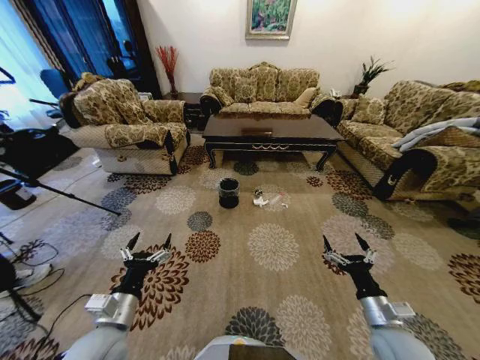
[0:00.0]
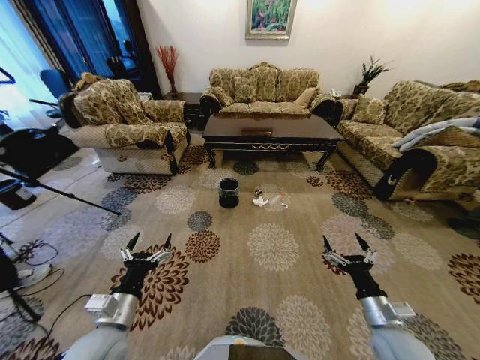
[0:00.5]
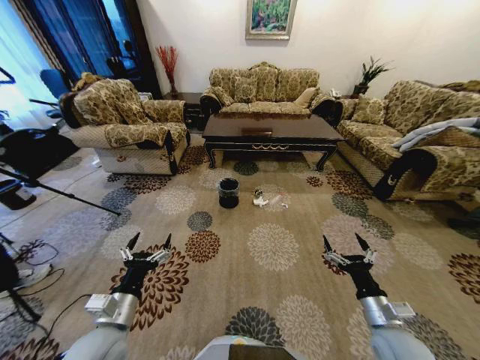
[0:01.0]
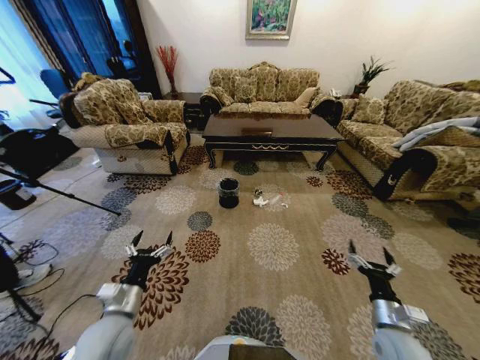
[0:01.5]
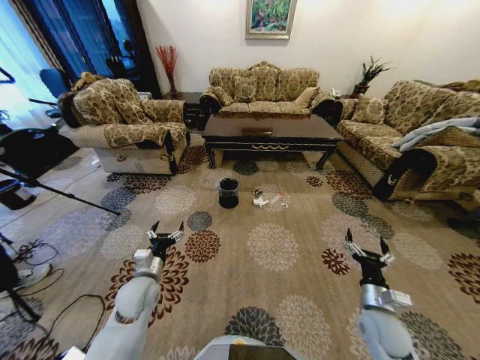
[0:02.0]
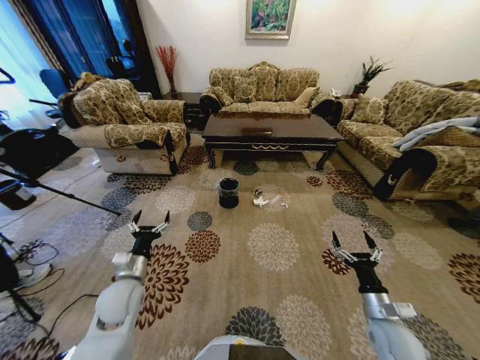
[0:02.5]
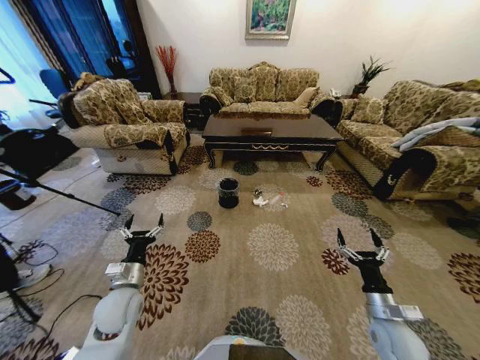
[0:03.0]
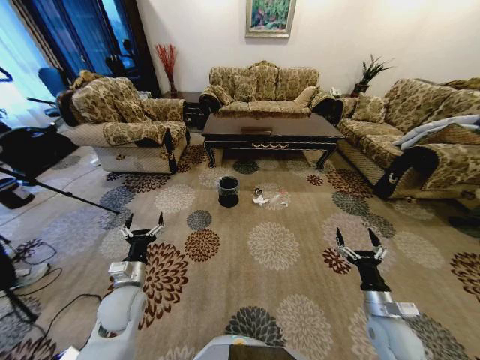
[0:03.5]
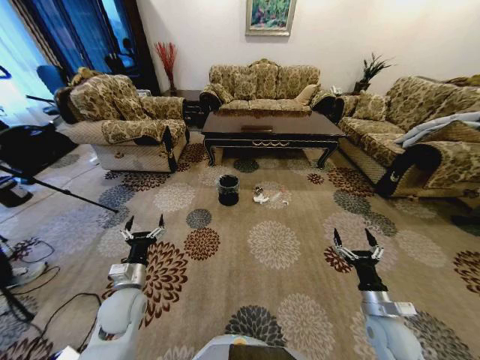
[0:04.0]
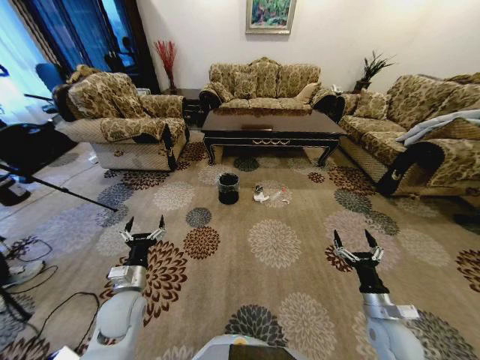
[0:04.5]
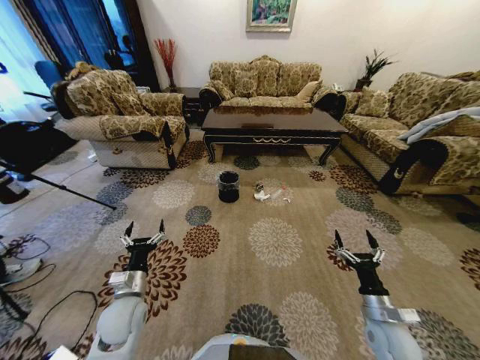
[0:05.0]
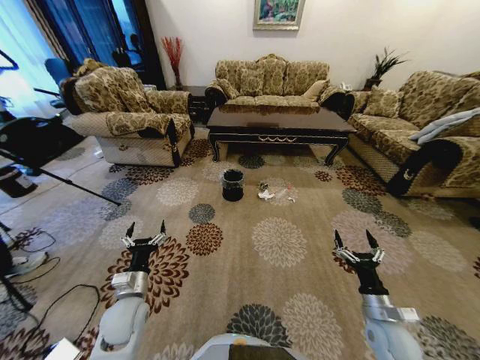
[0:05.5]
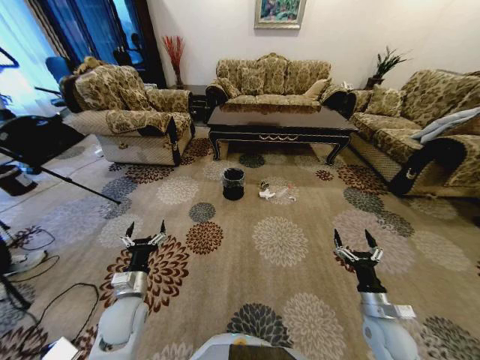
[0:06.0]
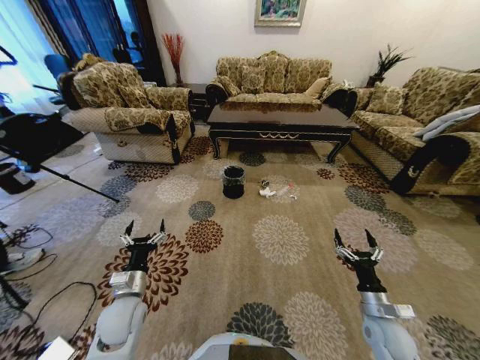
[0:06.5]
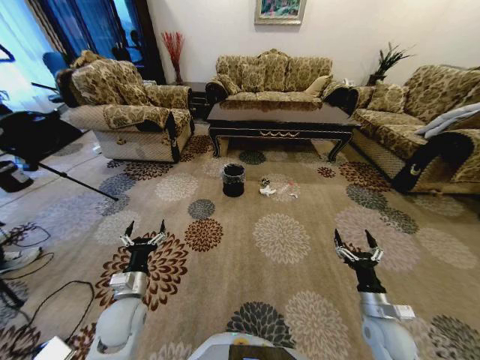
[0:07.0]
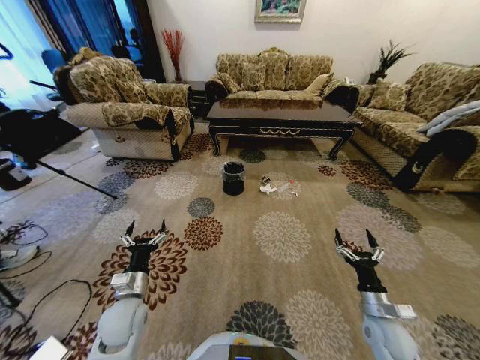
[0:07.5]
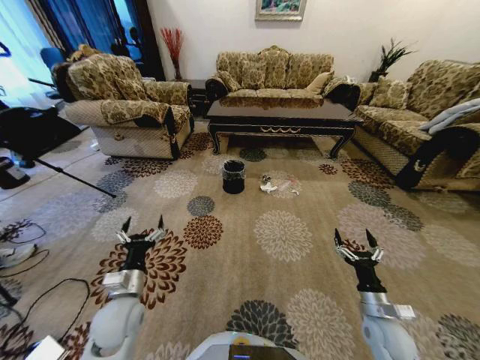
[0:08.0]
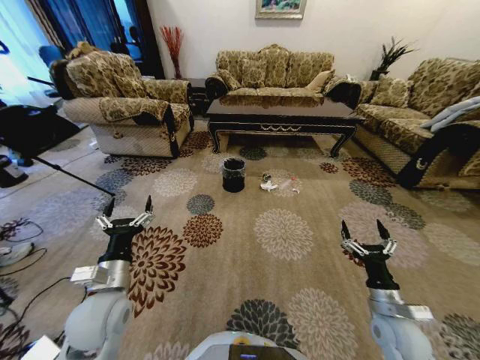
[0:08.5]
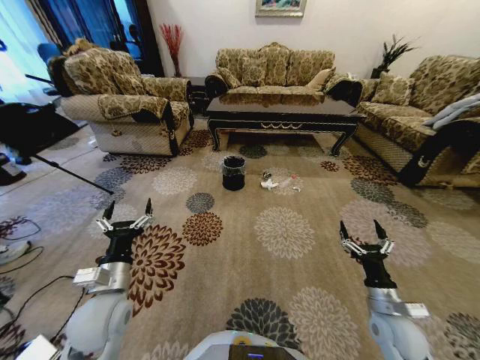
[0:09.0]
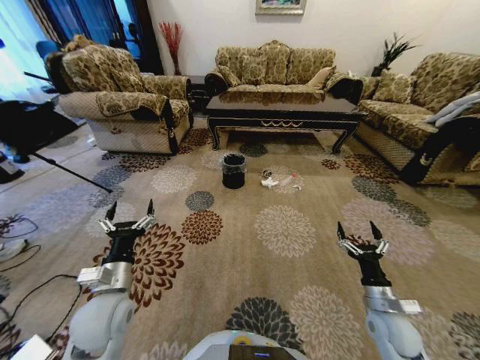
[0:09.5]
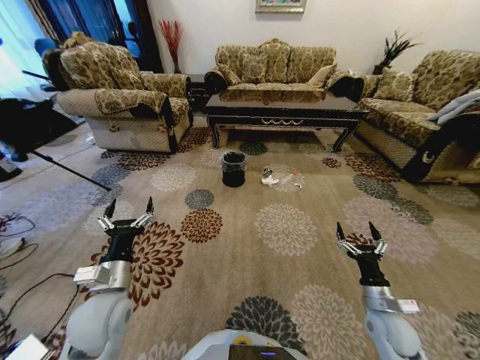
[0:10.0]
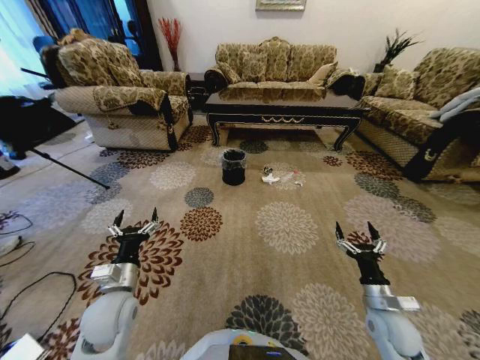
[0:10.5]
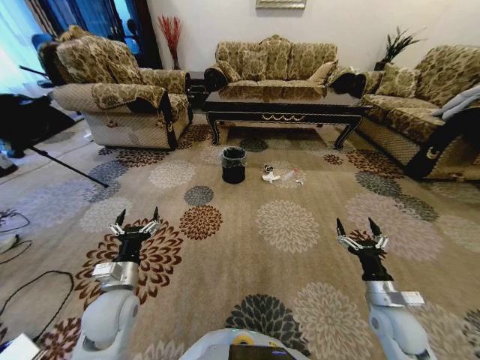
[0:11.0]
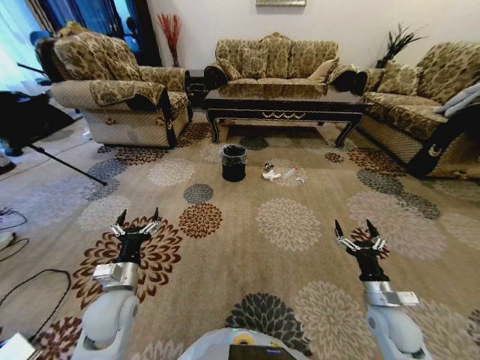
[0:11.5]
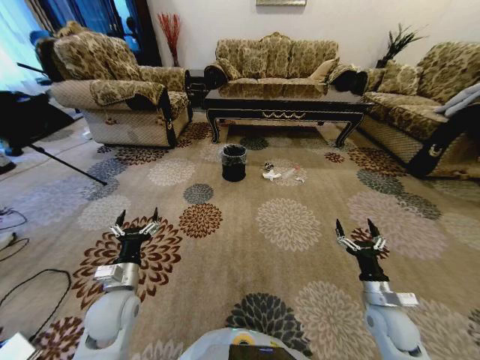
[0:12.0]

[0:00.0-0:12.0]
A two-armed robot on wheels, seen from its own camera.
Task of the whole recording: Move to the front of the table and pick up the trash from the floor, then place it into the trash bin.
8.0 to 10.0 s: The left gripper shifts approximately 5 cm upward.
10.0 to 12.0 s: The left gripper travels downward by approximately 5 cm.

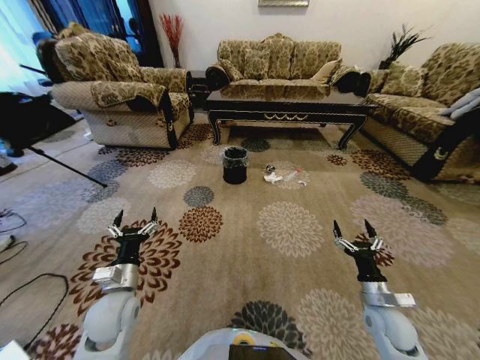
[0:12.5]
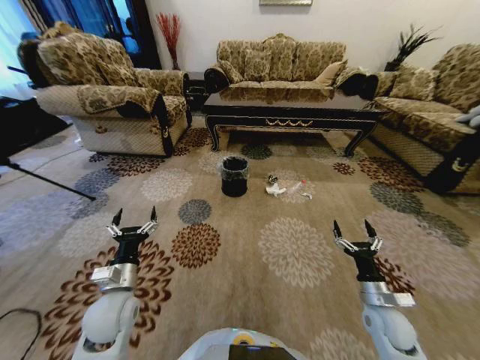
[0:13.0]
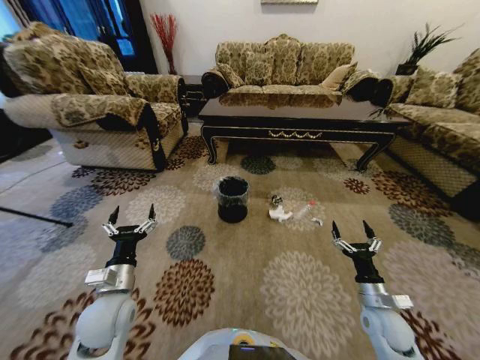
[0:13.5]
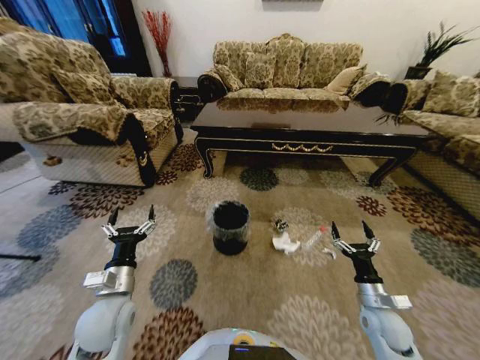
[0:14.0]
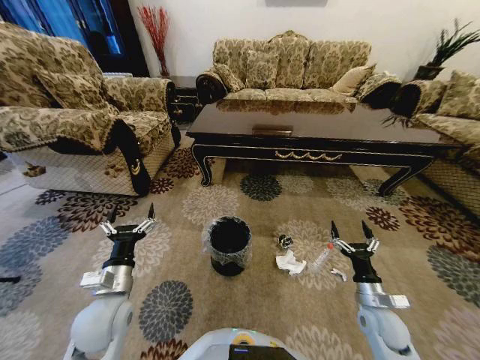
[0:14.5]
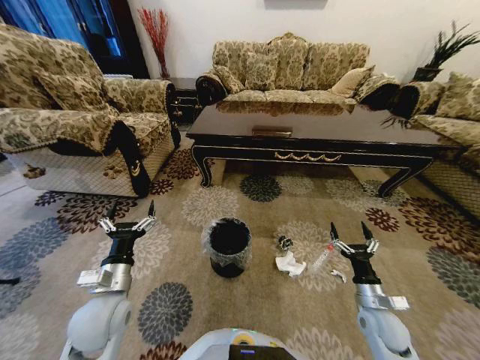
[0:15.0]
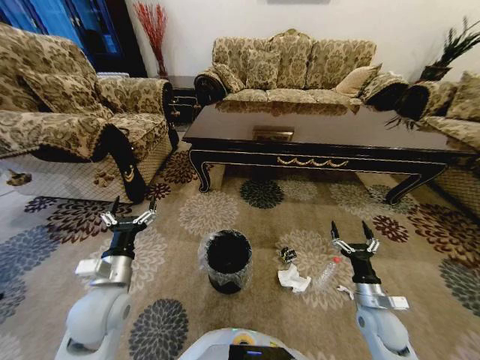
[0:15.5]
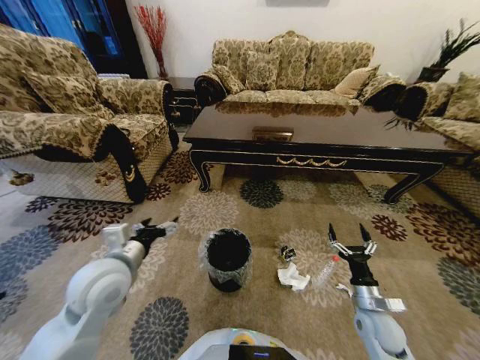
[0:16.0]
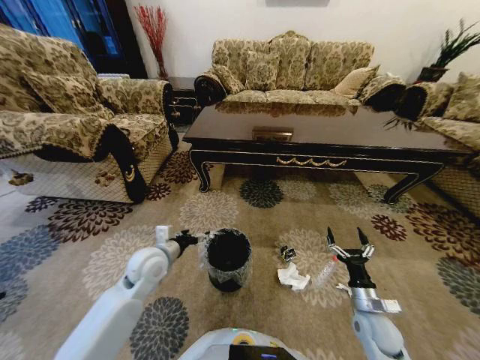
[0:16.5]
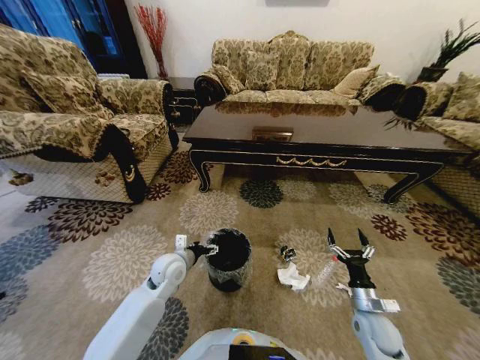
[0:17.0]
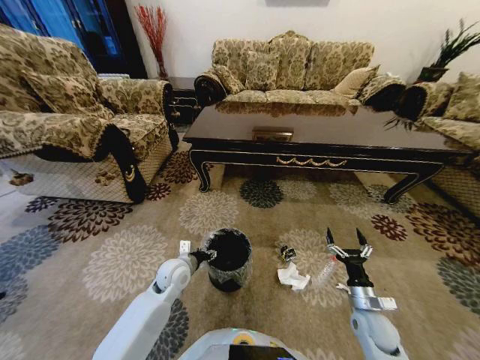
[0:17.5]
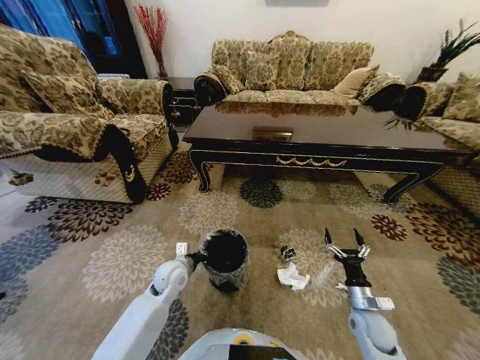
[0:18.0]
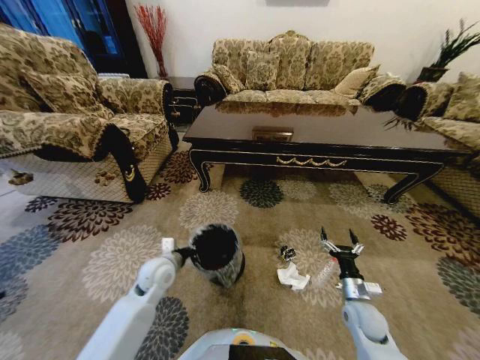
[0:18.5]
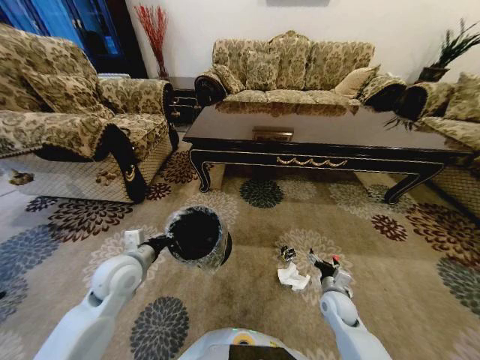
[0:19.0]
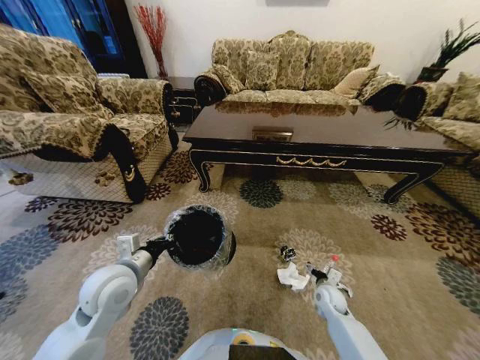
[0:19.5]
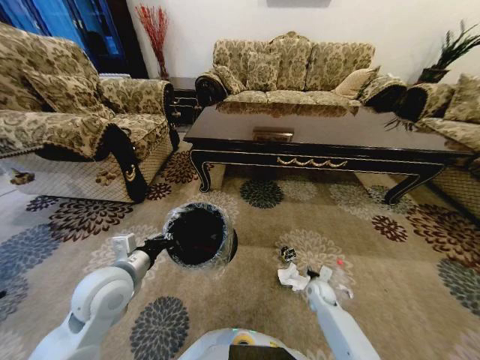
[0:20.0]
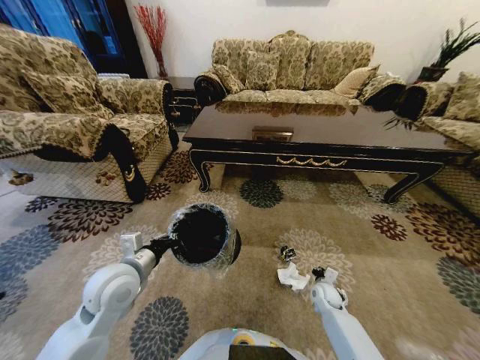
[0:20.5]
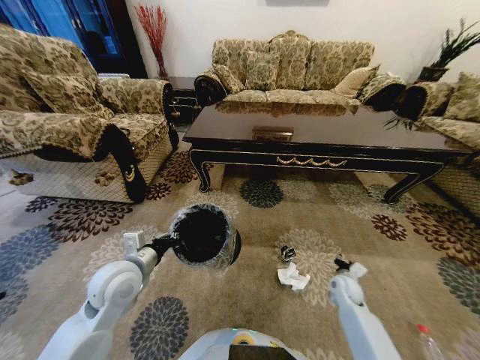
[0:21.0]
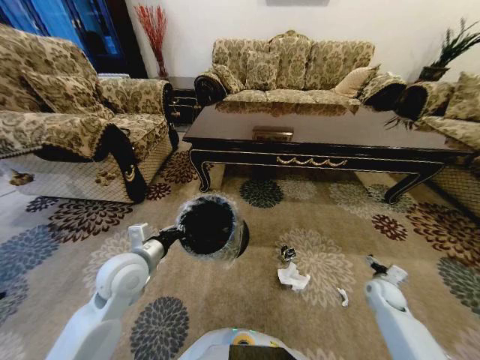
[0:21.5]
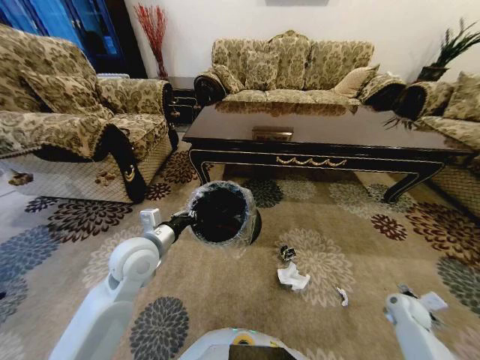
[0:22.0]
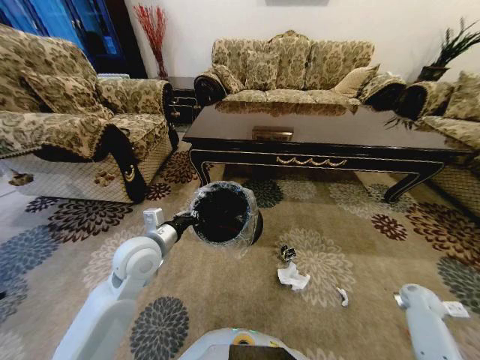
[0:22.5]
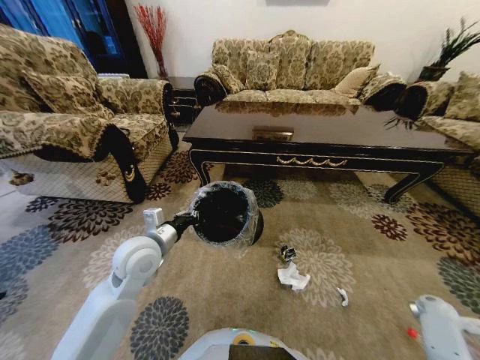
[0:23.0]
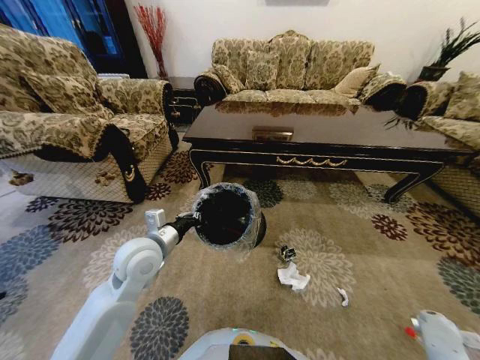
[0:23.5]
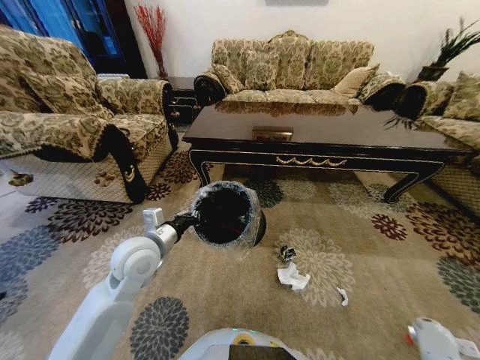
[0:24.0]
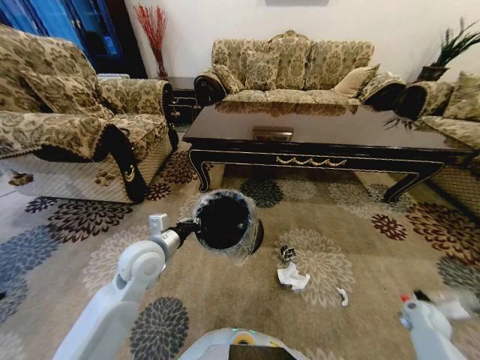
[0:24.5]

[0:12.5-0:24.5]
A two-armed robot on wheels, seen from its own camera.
Task of the whole recording: Move to the front of the table and pick up the trash from the floor, then place it into the trash bin.
14.5 to 16.5 s: The left gripper heads forward, covering approximately 10 cm.
16.5 to 18.5 s: The left gripper travels downward by about 5 cm, and closes up.
18.5 to 20.5 s: The right gripper is displaced downward and forward by approximately 15 cm, and closes; the left gripper travels upward and backward by roughly 15 cm.
20.5 to 22.5 s: The left gripper travels forward by some 5 cm, while the right gripper is displaced to the right by about 25 cm, and opens its fingers.
22.5 to 24.5 s: The right gripper moves some 5 cm to the right and comes back, and closes.

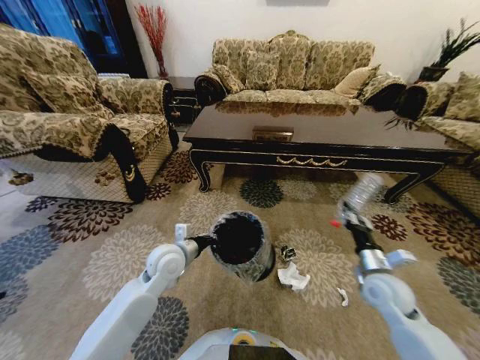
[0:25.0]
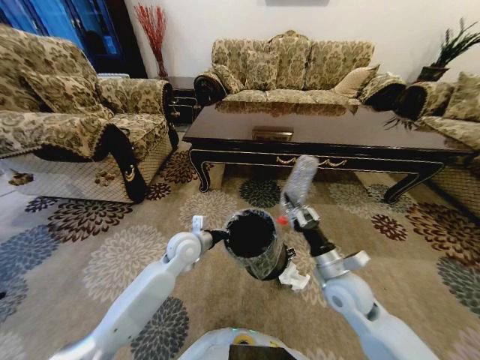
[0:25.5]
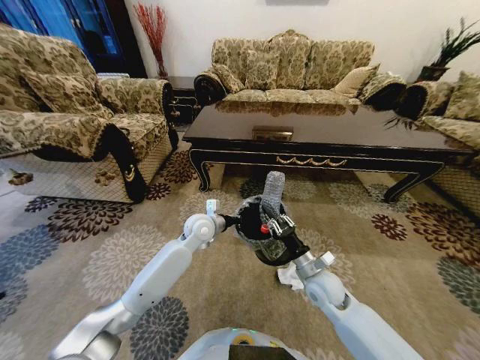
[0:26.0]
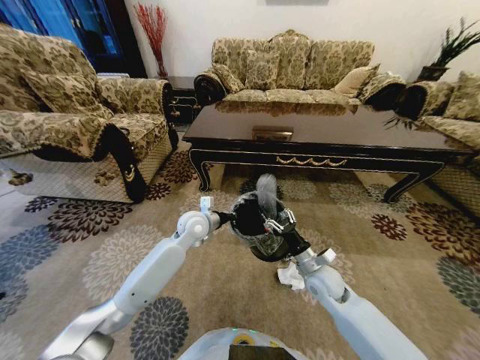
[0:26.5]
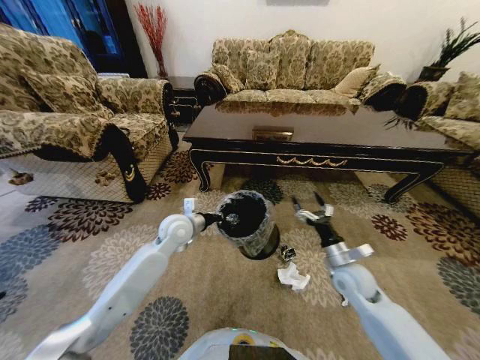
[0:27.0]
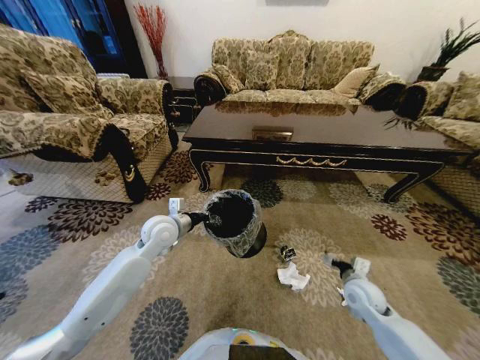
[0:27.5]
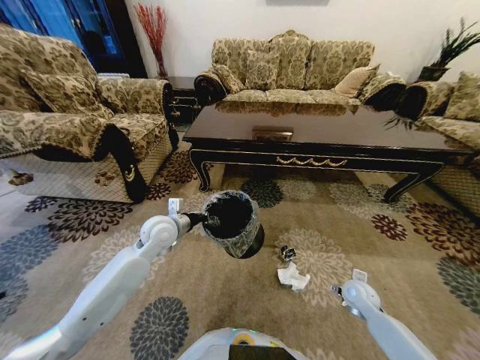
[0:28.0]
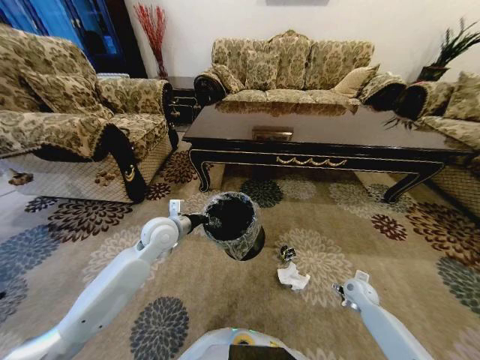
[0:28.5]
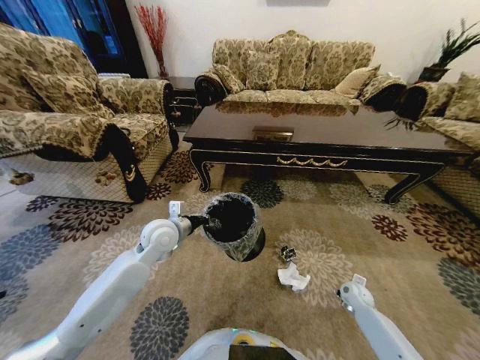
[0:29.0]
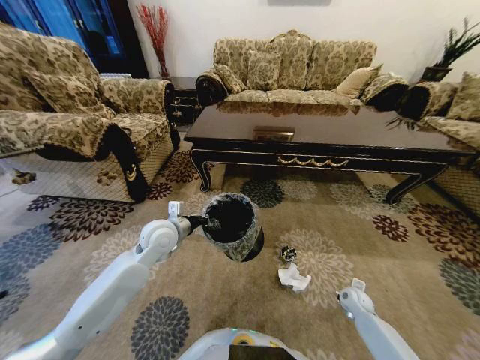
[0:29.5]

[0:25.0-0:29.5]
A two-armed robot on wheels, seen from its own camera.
Task of the whole recording: Move to the front of the table and pick up the trash from the floor, then place it into the trash bin.
25.0 to 27.0 s: The left gripper travels forward by about 10 cm, while the right gripper heads to the left, covering approximately 5 cm, and opens its fingers.
27.0 to 29.5 s: The right gripper moves downward and to the right, about 20 cm, and closes up. Meanwhile the left gripper shifts by approximately 5 cm.
